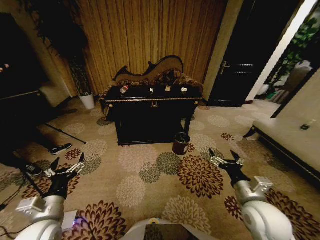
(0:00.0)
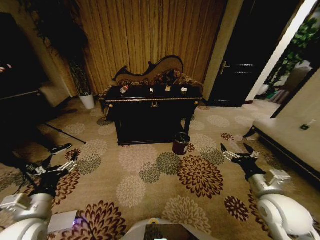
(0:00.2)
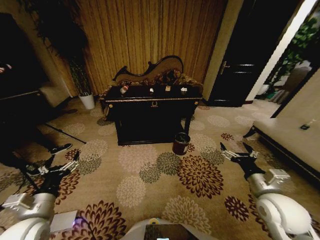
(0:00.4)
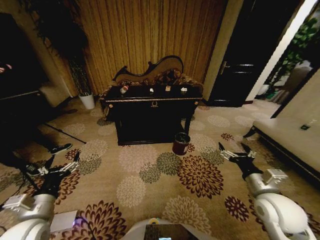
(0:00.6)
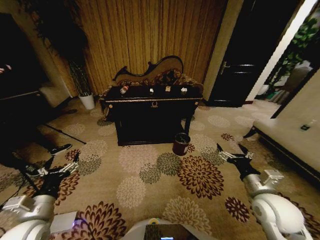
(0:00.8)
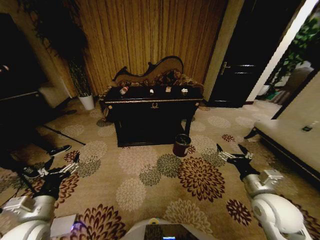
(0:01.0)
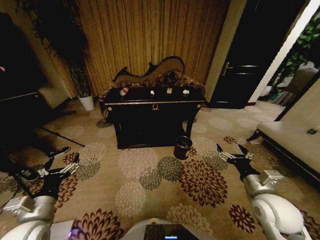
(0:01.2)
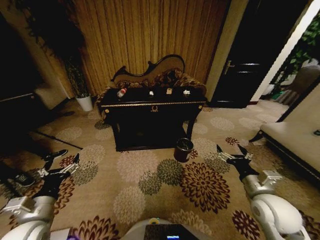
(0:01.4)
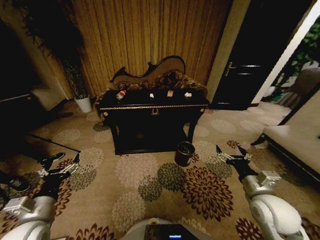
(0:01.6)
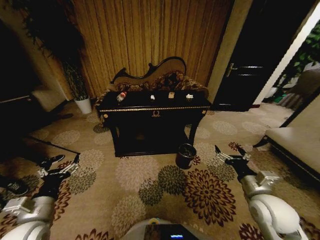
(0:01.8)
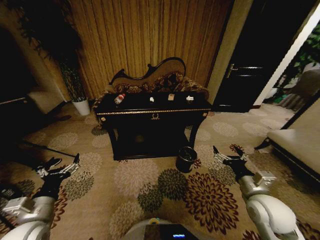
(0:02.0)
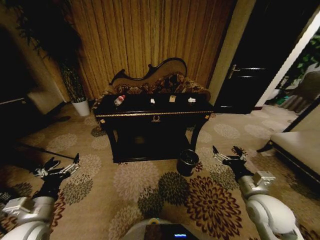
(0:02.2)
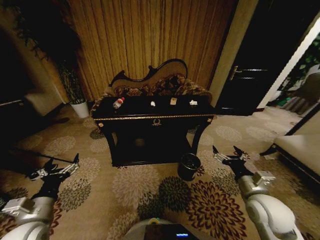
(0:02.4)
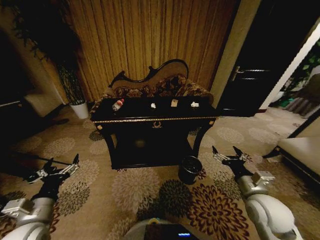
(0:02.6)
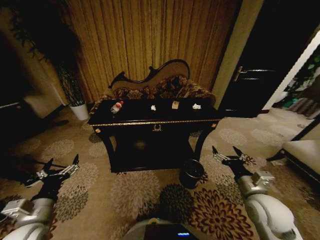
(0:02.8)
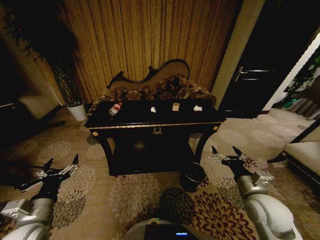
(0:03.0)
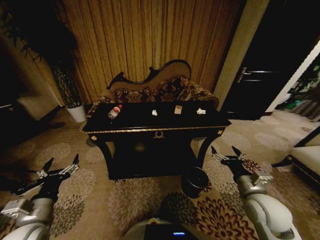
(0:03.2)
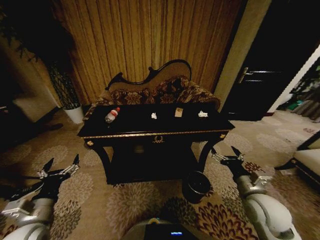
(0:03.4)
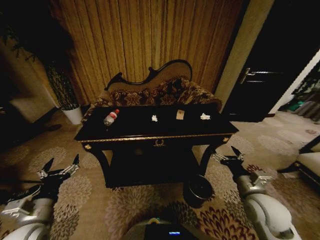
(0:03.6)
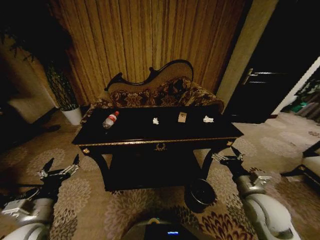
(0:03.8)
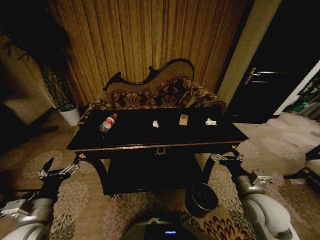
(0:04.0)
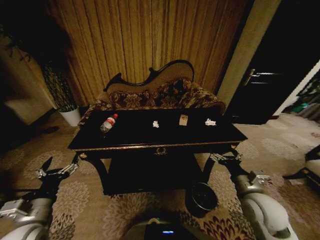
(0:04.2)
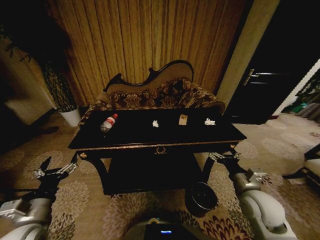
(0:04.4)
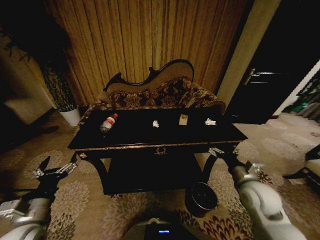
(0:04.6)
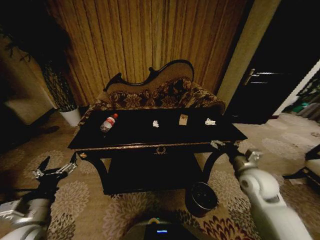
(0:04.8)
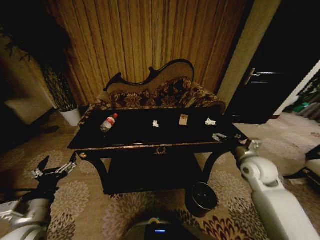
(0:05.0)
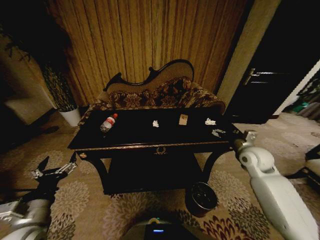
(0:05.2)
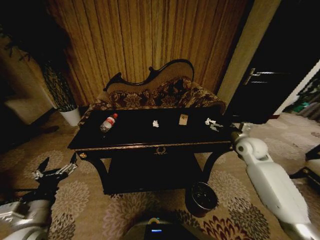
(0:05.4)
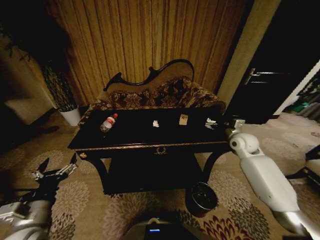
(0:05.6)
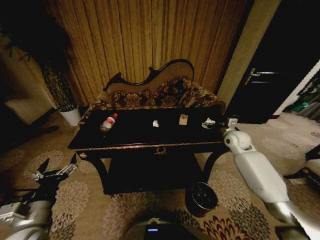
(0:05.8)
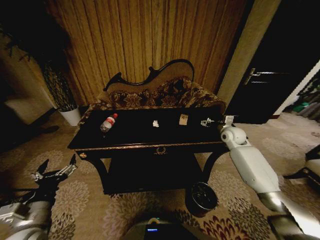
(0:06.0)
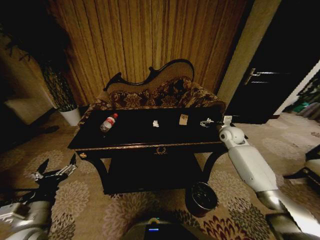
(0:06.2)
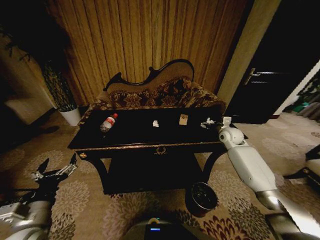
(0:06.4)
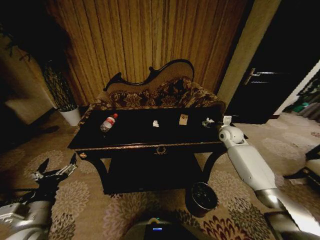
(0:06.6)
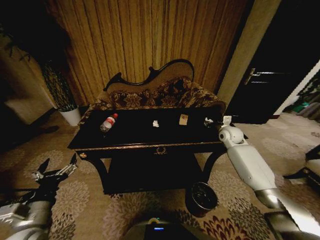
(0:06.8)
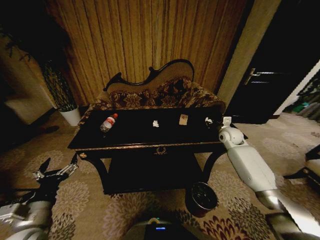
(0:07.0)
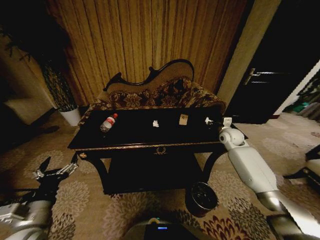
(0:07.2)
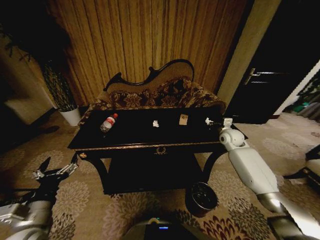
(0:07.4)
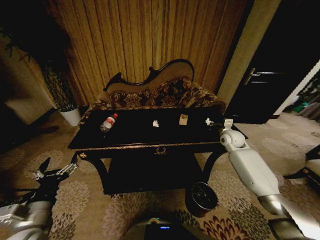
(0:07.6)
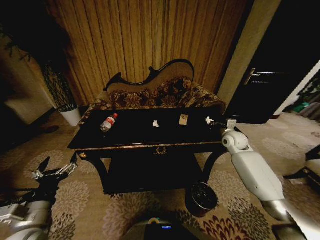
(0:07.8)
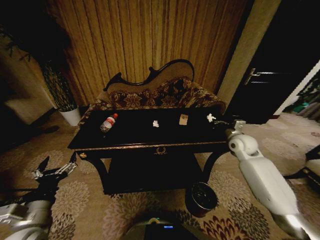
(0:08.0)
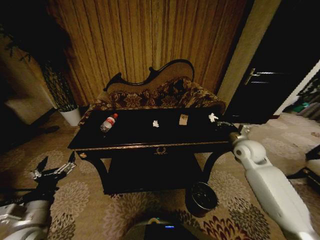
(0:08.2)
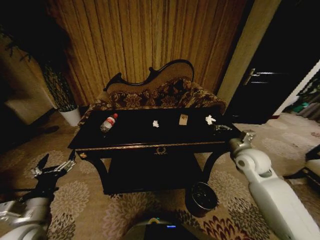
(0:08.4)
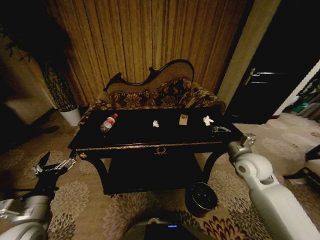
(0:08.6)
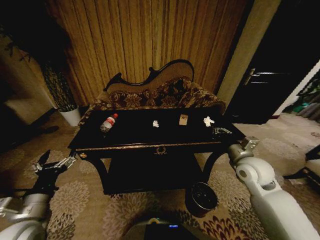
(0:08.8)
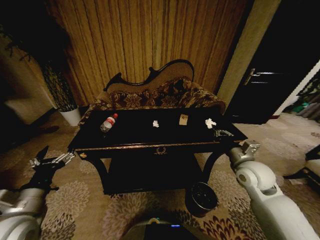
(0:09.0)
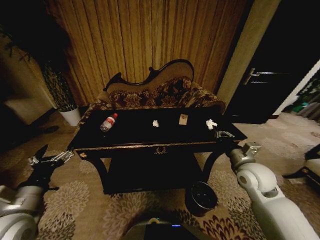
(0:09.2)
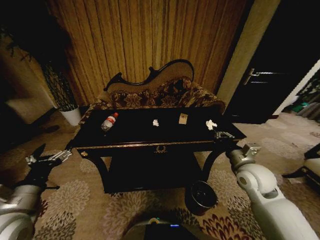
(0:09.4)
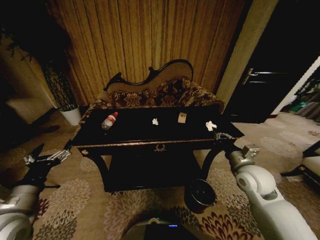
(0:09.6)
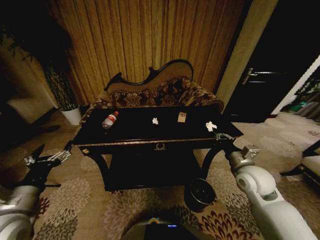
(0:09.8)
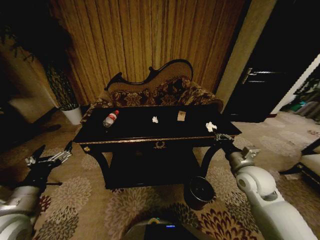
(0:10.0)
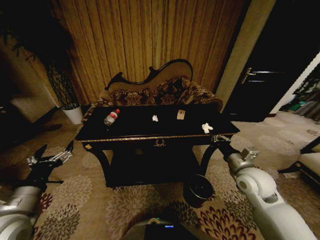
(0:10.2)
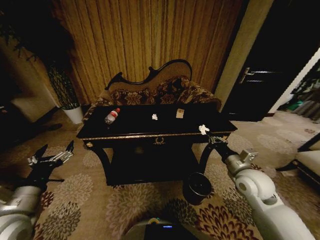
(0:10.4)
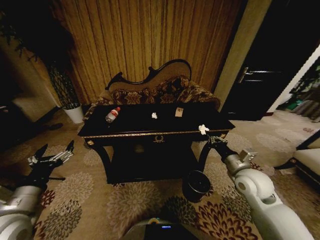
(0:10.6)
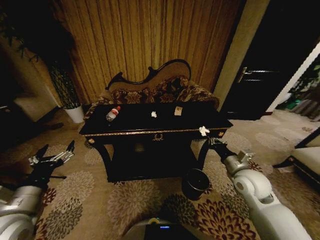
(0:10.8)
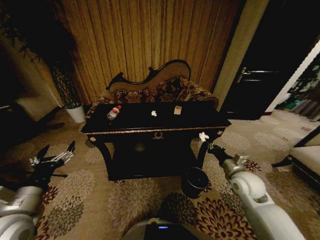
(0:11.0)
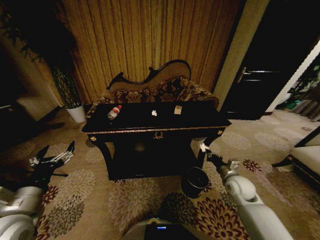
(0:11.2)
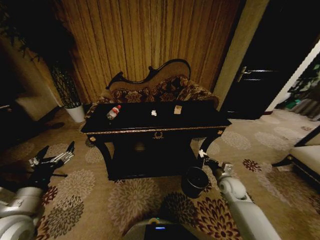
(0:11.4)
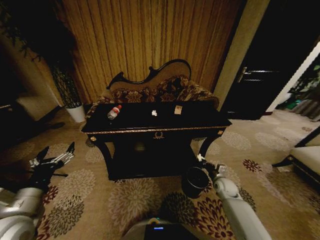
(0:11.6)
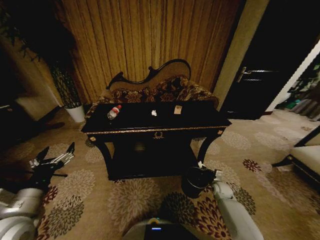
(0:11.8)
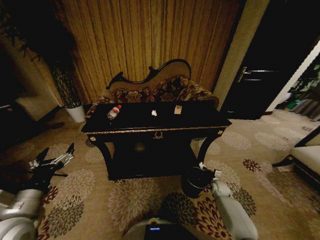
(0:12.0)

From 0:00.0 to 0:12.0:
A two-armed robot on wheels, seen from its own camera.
Task of the whole recording: Move to the front of the table and place the trash on the table into the trash bin.
From 0:04.4 to 0:06.0: The right gripper moves forward, roughly 30 cm.
From 0:06.0 to 0:07.6: The right gripper closes its fingers.
From 0:07.6 to 0:09.0: The right gripper goes approximately 20 cm backward.
From 0:10.4 to 0:12.0: The right gripper is displaced downward by about 30 cm.

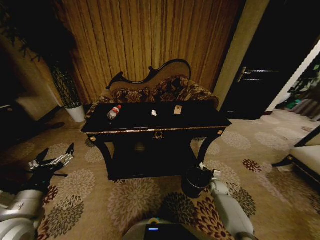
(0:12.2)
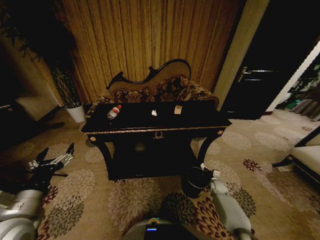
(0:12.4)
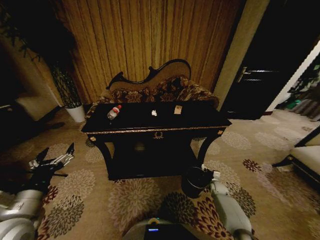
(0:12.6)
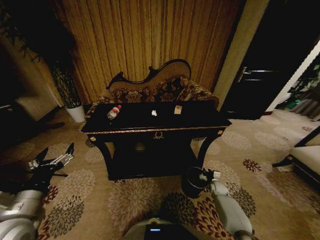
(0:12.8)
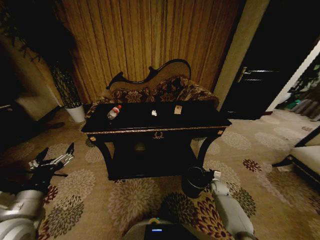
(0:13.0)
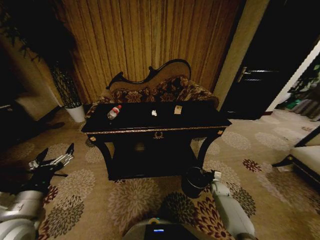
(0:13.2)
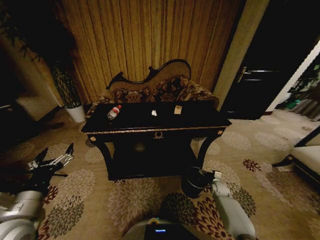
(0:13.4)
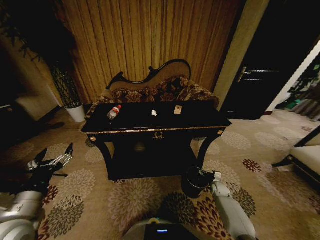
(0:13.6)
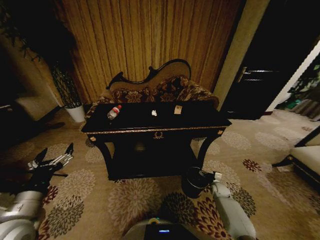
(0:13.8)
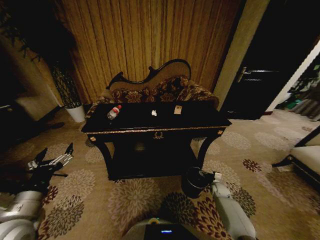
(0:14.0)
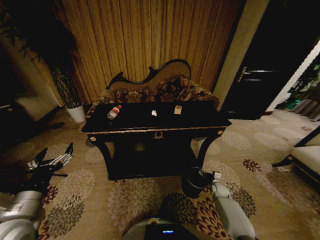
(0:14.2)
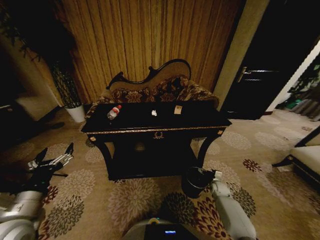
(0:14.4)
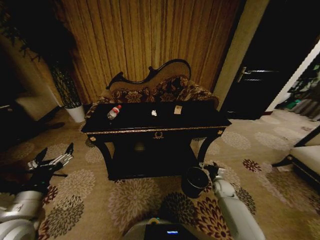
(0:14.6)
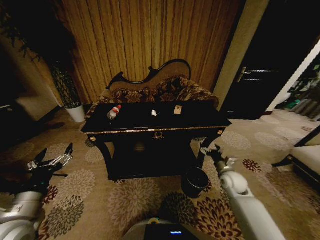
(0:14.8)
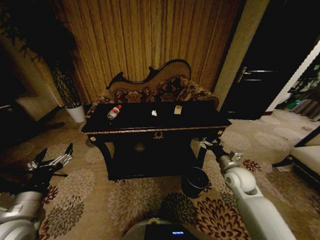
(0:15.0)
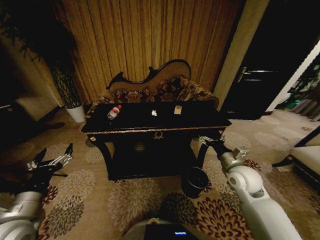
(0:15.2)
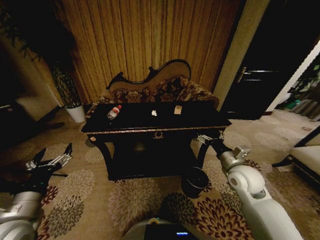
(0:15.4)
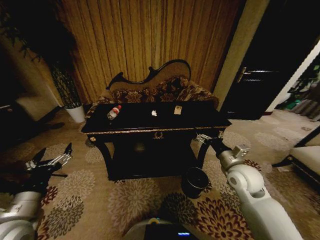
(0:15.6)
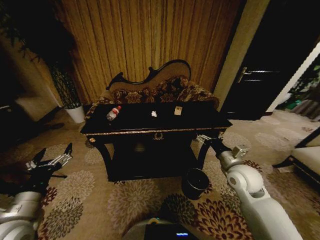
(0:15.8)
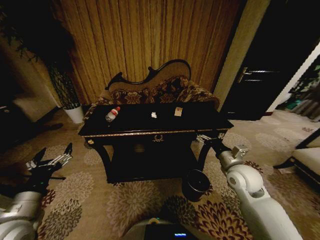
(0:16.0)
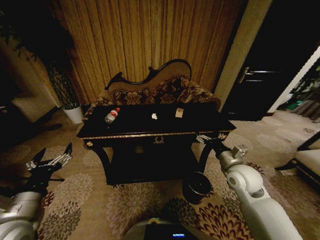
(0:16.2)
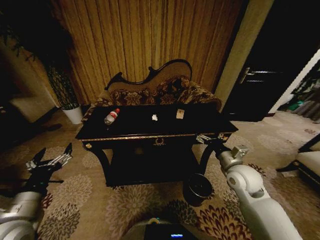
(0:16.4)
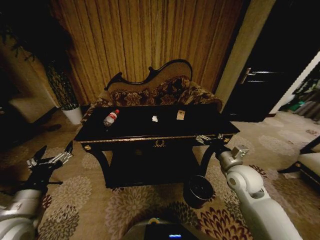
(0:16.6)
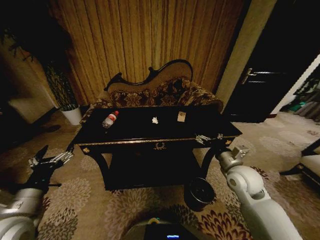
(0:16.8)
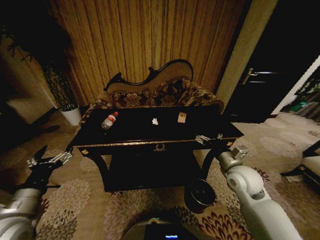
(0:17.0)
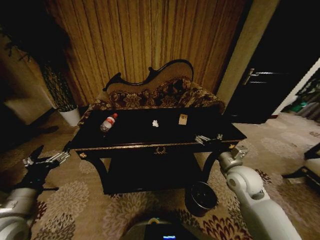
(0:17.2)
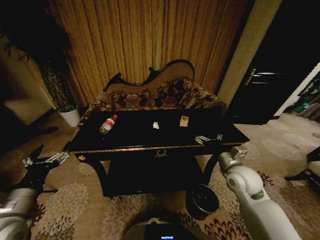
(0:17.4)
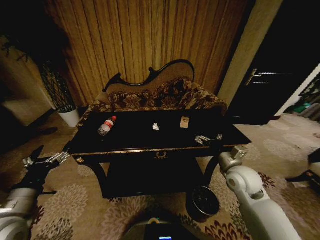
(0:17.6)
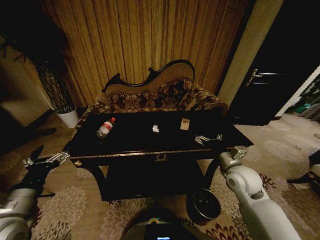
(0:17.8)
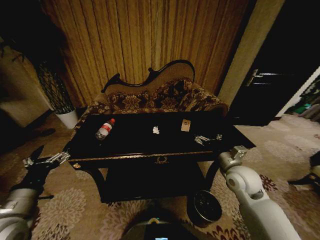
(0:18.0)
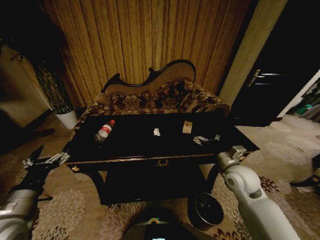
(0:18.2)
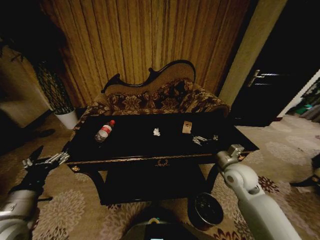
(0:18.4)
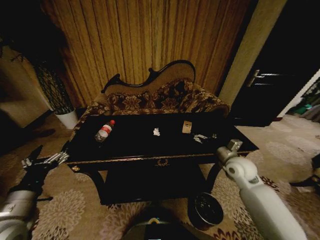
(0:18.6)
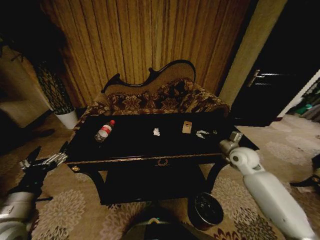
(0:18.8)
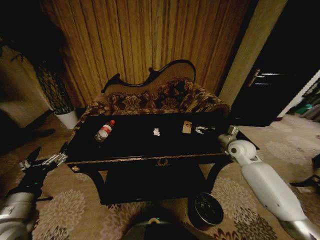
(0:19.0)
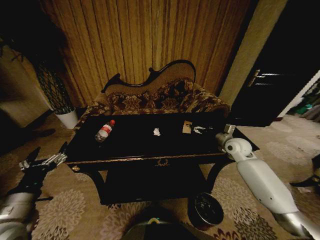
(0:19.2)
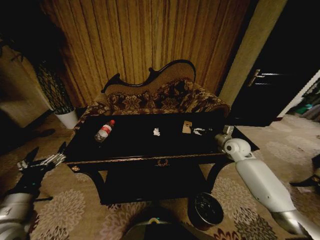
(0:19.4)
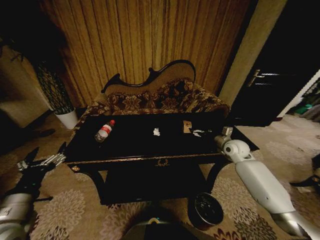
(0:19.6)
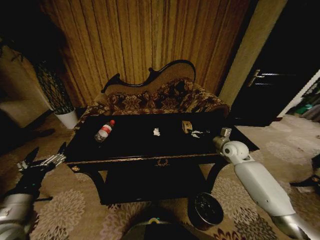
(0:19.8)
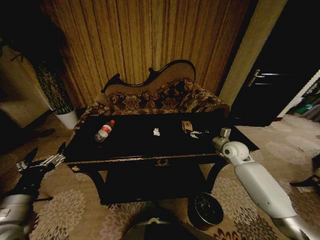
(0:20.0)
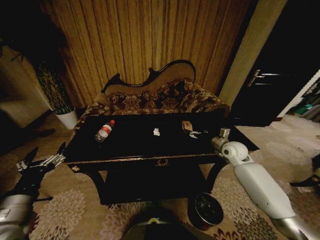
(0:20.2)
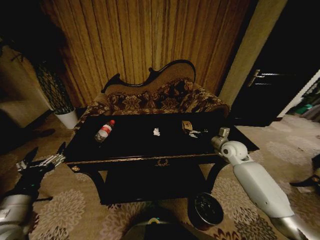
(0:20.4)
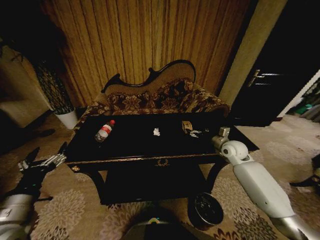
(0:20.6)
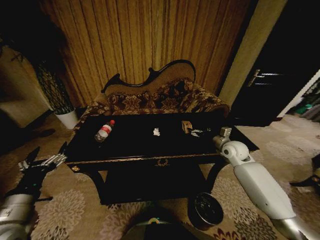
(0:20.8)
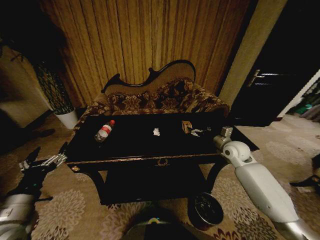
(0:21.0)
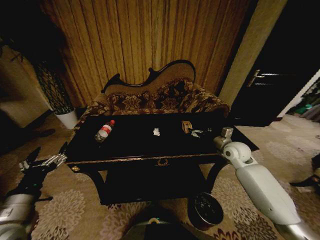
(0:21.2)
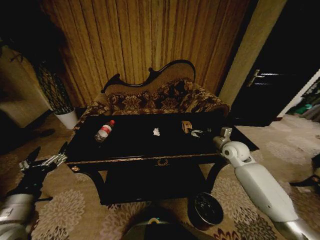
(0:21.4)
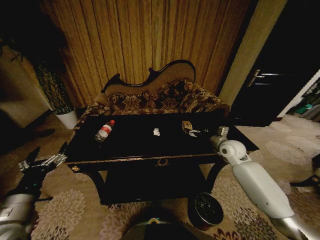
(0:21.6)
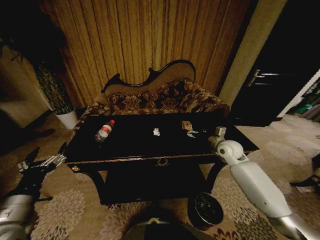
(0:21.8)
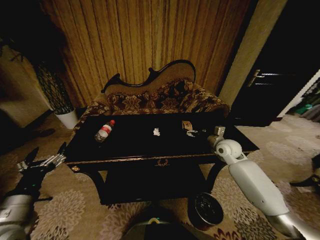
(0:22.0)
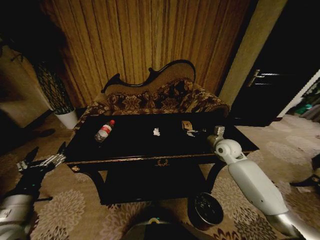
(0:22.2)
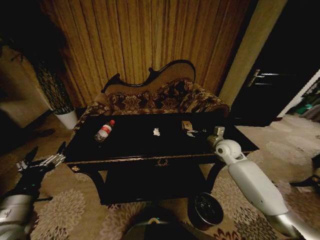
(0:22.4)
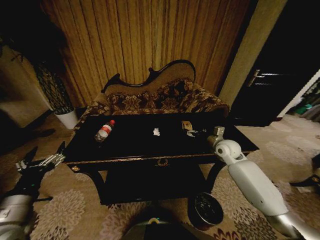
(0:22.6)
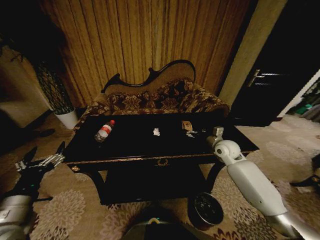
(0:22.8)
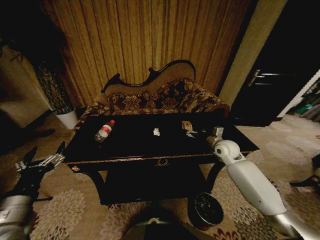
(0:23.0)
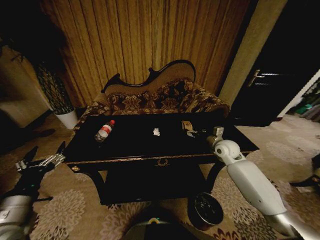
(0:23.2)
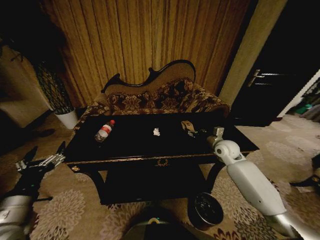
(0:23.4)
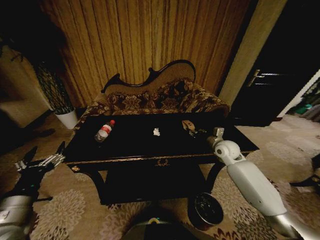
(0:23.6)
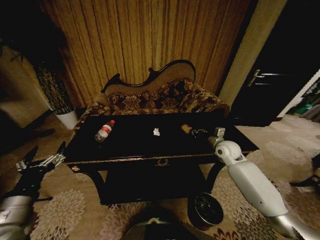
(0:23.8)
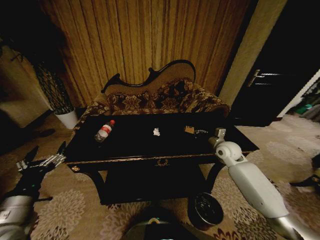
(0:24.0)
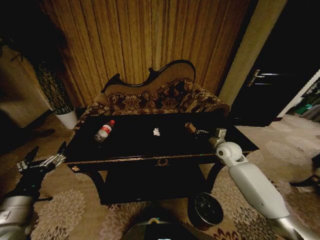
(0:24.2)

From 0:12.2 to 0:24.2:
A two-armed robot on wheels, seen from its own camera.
Task of the whole recording: Move to the front of the table and place the trash on the table into the trash bin.
From 0:12.2 to 0:13.8: The right gripper opens.
From 0:13.8 to 0:15.2: The right gripper goes approximately 30 cm upward.
From 0:15.2 to 0:16.6: The grippers stay close to where they were, moving slightly.
From 0:18.2 to 0:19.8: The right gripper goes roughly 15 cm forward and to the right.
From 0:19.8 to 0:22.6: There are only small adjustments of the grippers.
From 0:22.6 to 0:24.2: The right gripper closes.
